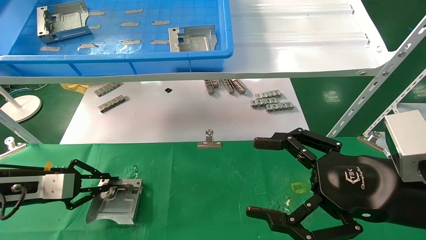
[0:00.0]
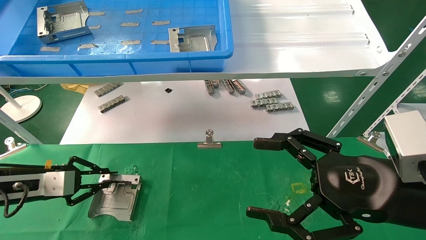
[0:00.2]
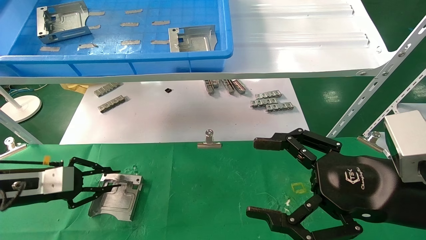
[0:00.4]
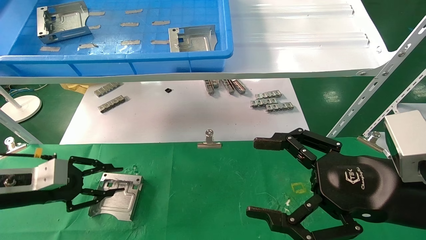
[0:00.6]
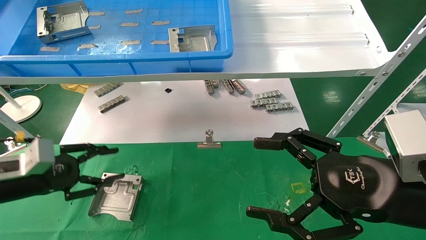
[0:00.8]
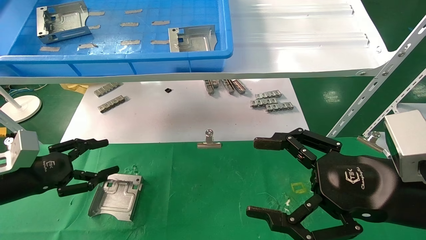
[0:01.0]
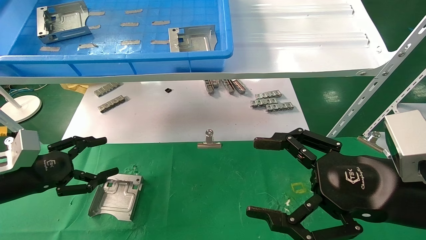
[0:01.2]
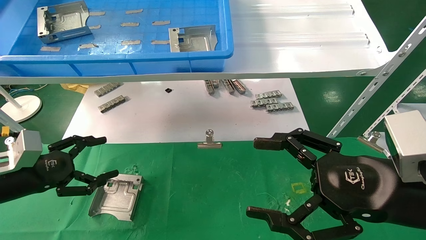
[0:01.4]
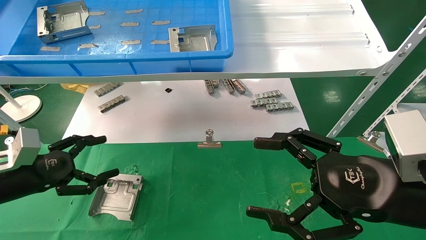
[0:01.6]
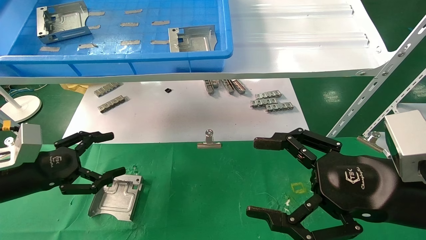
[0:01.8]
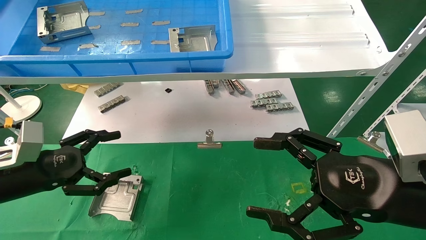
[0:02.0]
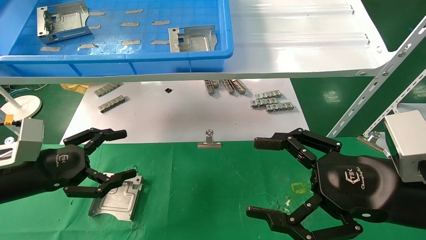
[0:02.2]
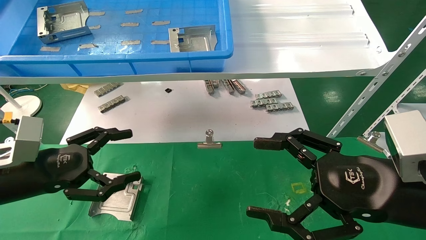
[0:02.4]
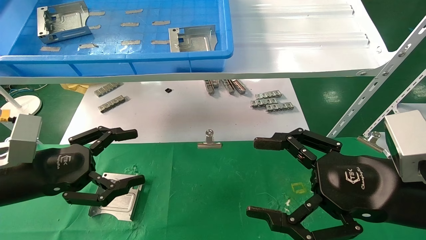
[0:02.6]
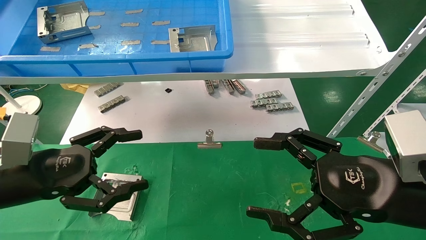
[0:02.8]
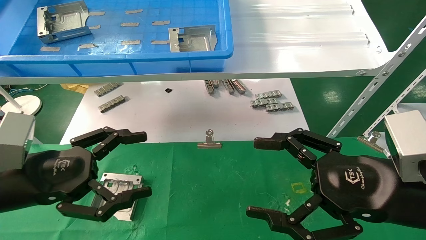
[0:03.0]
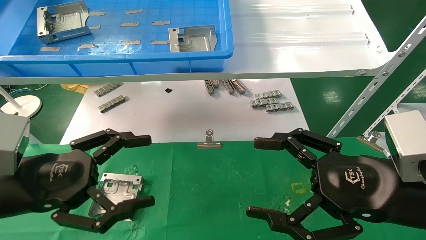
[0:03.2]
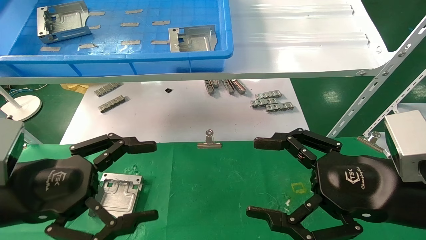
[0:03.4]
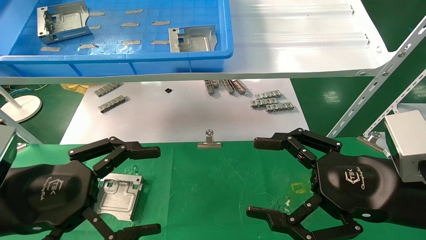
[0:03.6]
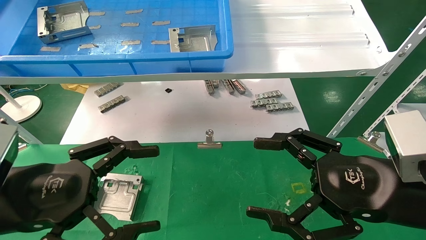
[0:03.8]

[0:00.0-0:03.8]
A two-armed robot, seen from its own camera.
Task of the whole recording: use the mechanical arm to pick up the parts and place them on the table.
0.0 to 1.2 s: The left gripper opens.
1.2 to 2.6 s: The left gripper goes approximately 10 cm to the right.
2.6 to 3.8 s: The left gripper shifts roughly 10 cm backward and to the right.

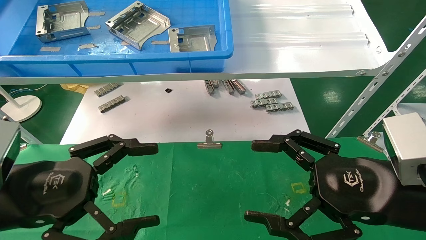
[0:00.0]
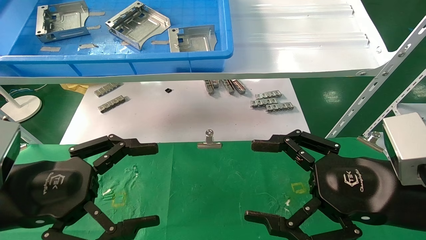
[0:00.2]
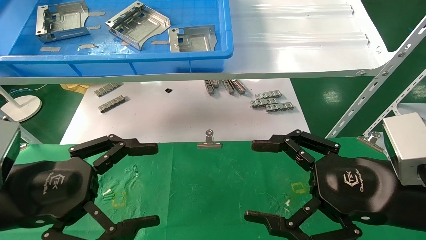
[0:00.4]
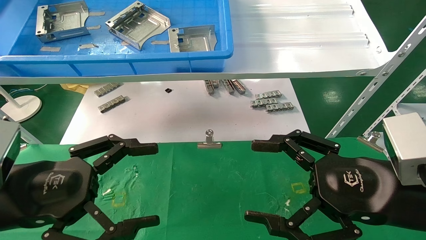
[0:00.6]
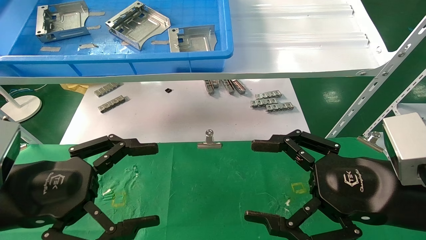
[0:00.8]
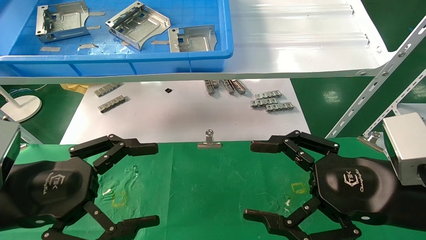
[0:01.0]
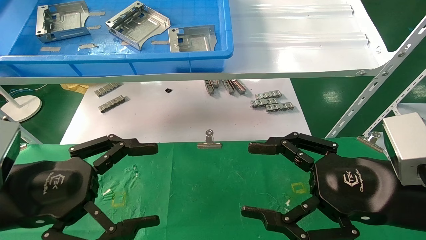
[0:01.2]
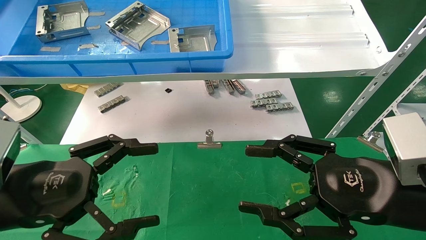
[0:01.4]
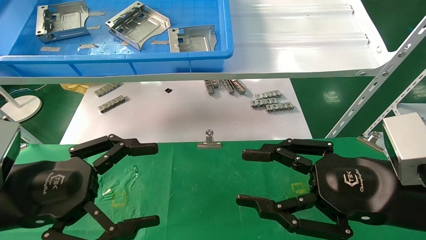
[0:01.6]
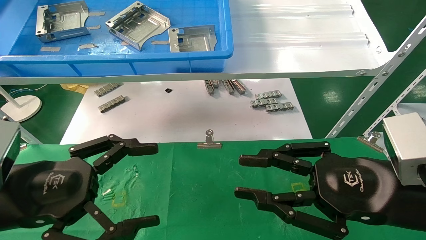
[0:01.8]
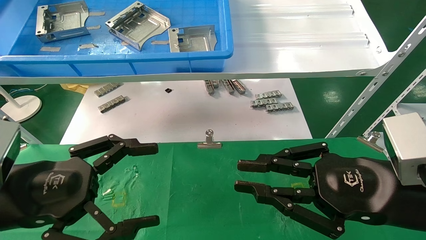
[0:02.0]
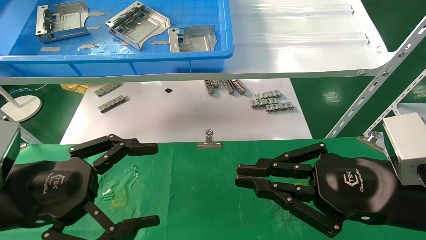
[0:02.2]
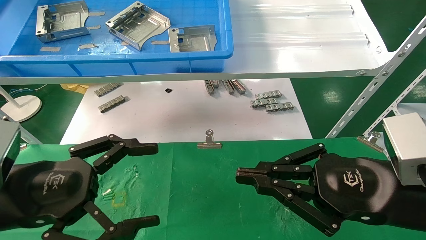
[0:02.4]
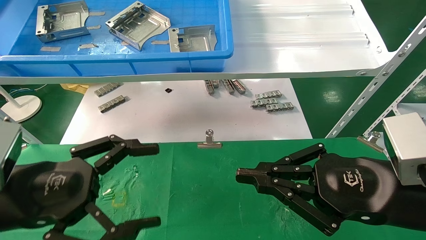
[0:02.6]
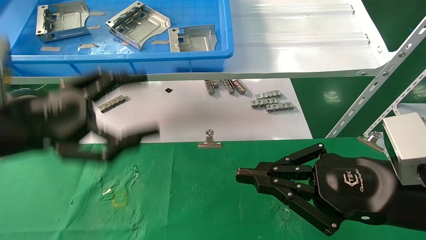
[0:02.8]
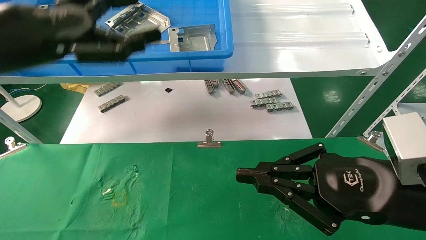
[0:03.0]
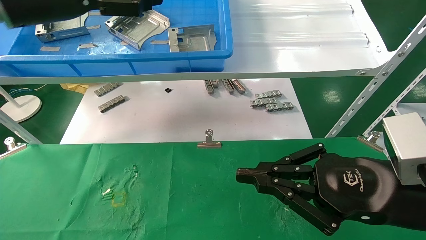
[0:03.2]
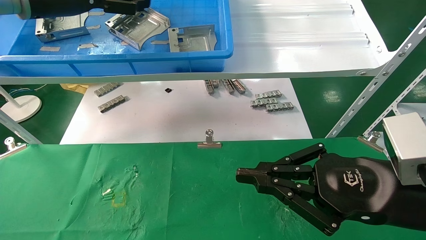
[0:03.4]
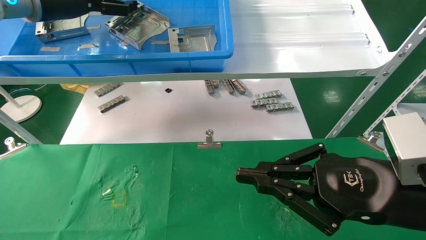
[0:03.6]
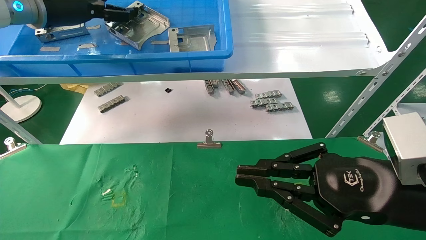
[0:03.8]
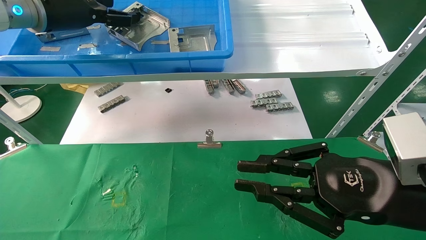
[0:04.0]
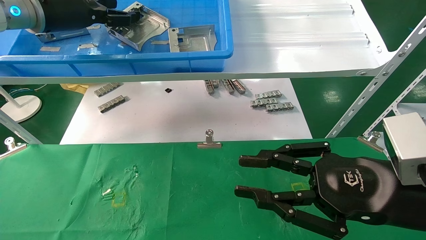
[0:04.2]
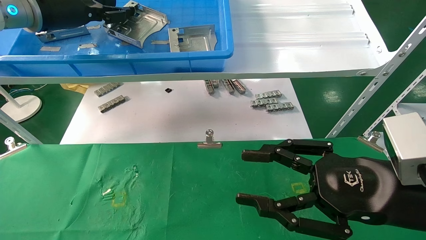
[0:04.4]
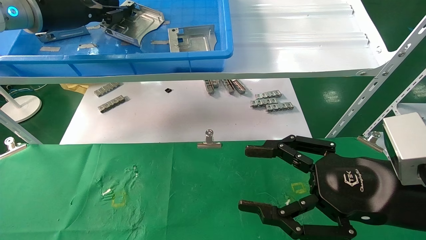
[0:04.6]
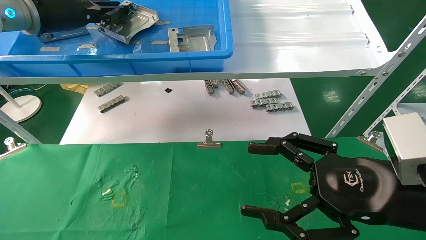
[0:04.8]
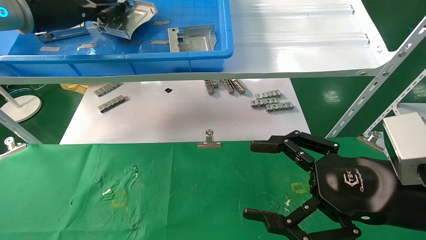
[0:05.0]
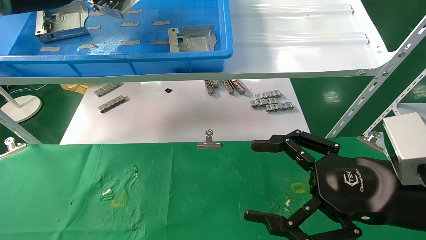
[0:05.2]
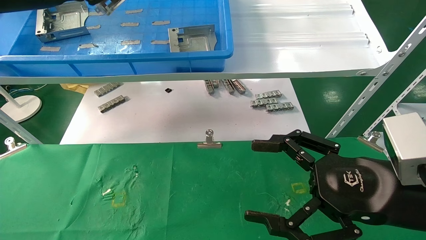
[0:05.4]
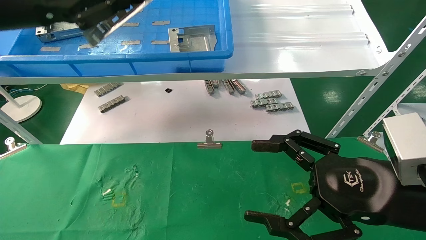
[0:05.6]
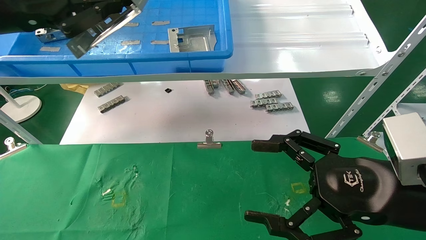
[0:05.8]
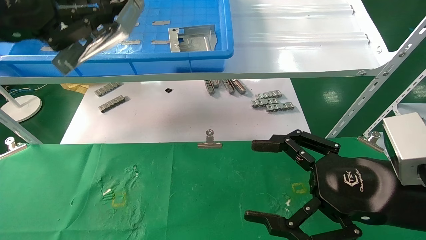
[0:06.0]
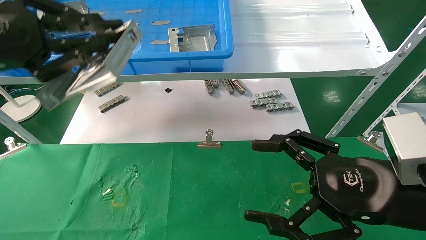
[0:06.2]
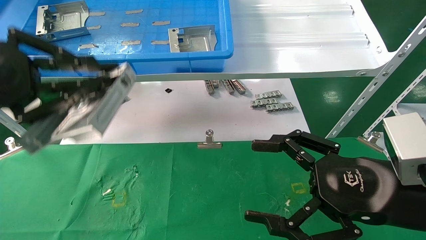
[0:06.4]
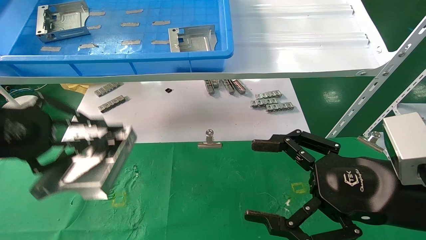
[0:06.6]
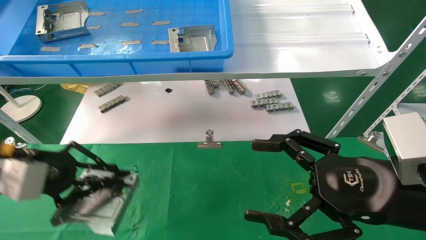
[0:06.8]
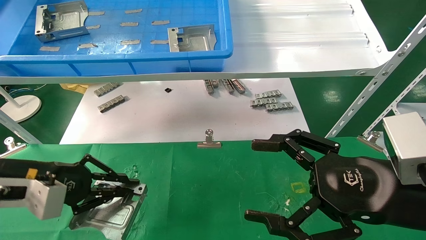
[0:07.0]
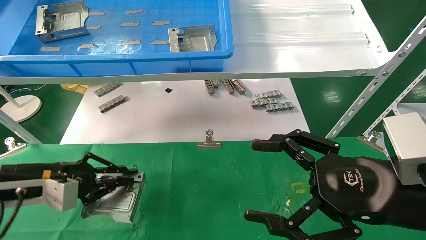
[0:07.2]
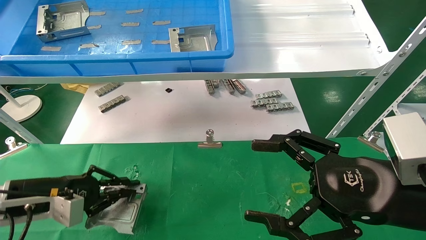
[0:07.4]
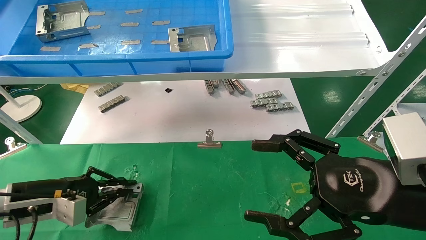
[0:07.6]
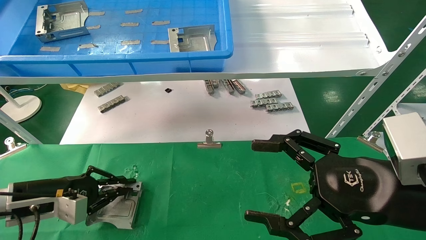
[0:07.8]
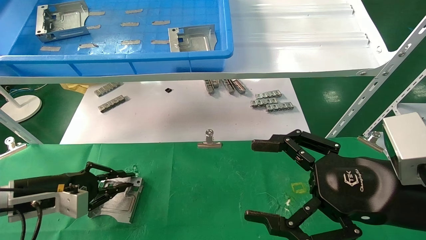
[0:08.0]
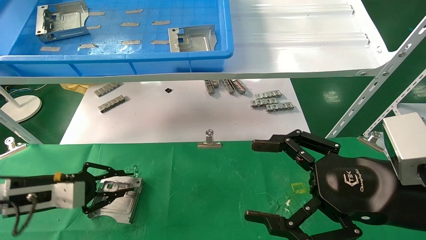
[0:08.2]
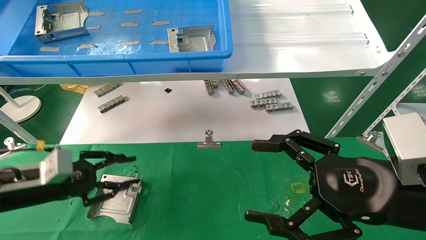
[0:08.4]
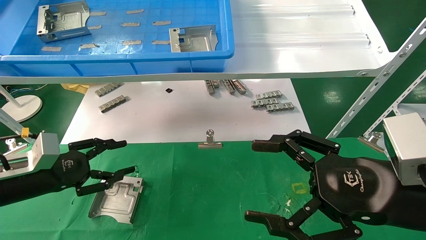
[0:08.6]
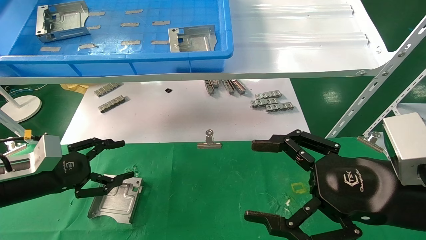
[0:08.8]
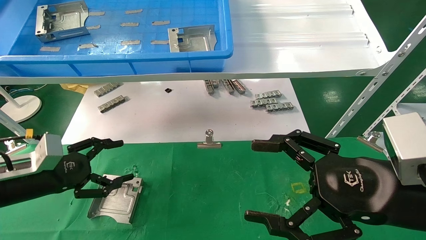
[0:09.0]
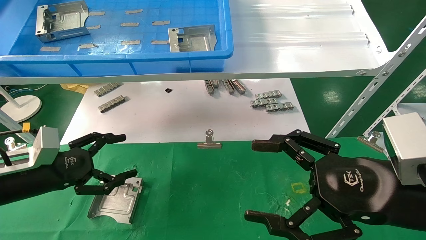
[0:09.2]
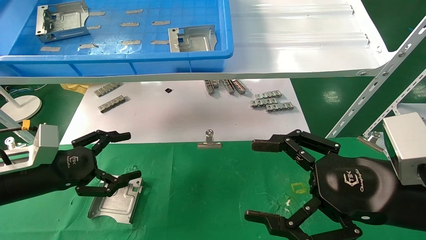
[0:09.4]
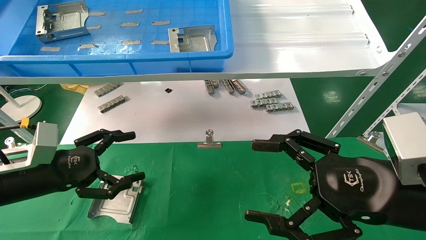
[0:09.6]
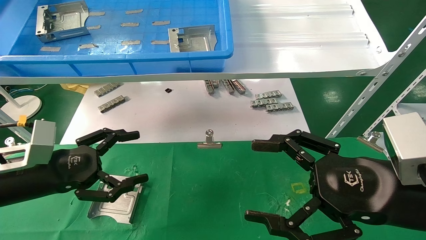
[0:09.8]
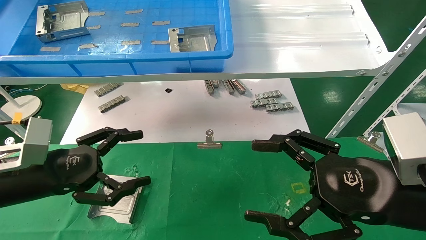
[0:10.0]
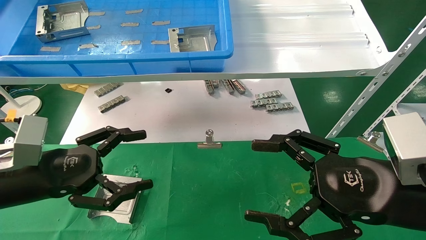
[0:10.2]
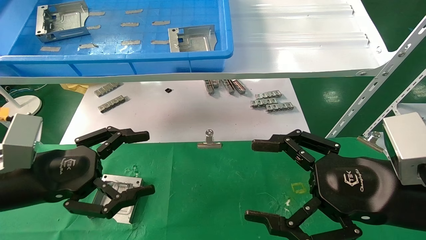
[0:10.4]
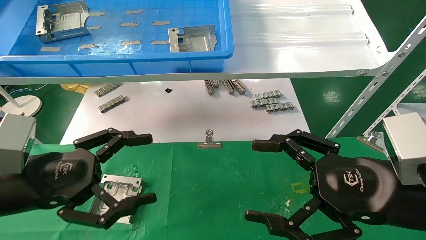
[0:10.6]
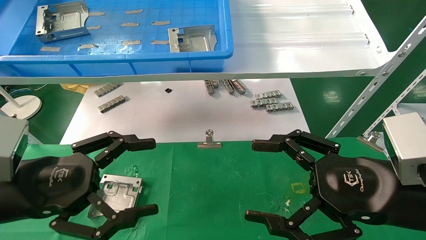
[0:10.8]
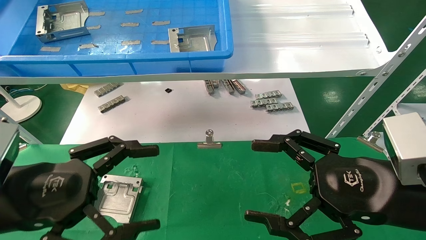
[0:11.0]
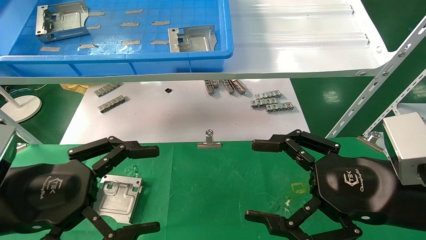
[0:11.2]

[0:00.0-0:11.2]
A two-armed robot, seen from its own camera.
Task of the whole recording: use the mechanical arm to pick up the parts and place them on the table.
Step, 2.8 to 4.8 s: Pick up the hard drive bracket from the feeding area.
Step, 5.0 to 8.4 s: Place the hard drive bracket into the box.
0.0 to 1.6 s: Both grippers stay about where they are.
1.6 to 3.2 s: The right gripper closes. The left gripper moves upward and forward, some 25 cm.
3.2 to 4.8 s: The left gripper goes roughly 5 cm forward, and closes its fingers, while the right gripper opens up.
4.8 to 6.4 s: The left gripper goes approximately 20 cm backward and downward.
6.4 to 8.0 s: The left gripper travels downward and forward by about 25 cm.
8.0 to 9.6 s: The left gripper is displaced upward by some 5 cm, and opens its fingers.
9.6 to 11.2 s: The left gripper heads backward, to the right and upward, covering about 15 cm.

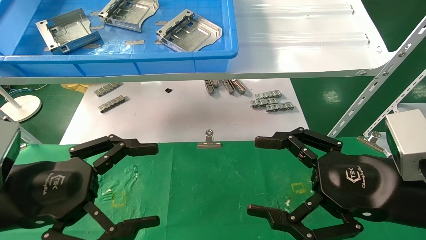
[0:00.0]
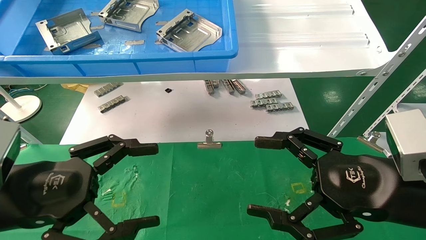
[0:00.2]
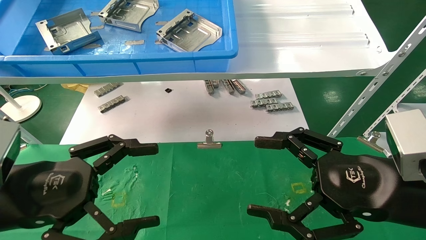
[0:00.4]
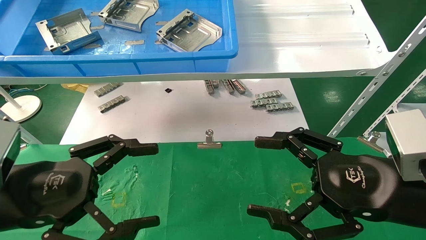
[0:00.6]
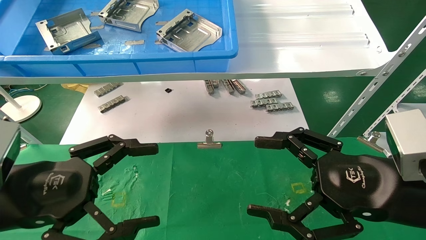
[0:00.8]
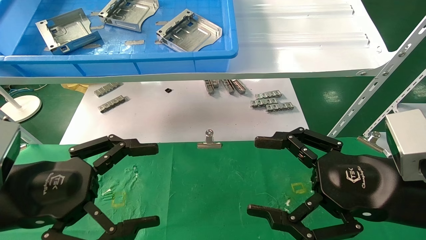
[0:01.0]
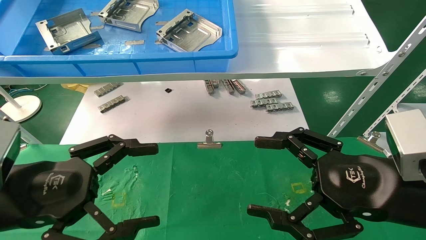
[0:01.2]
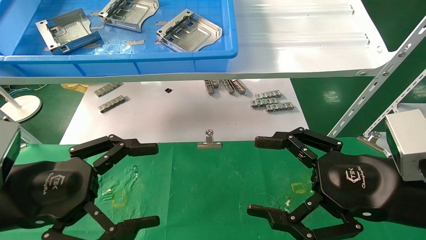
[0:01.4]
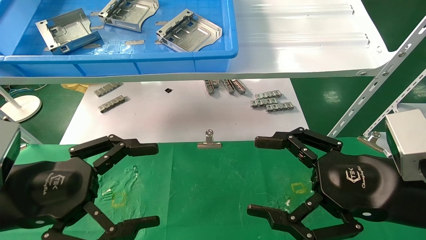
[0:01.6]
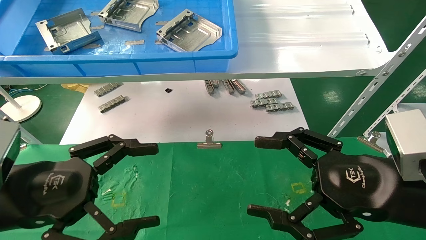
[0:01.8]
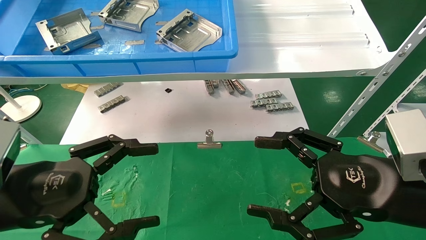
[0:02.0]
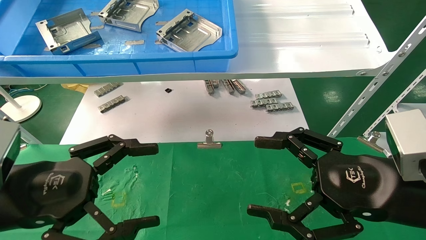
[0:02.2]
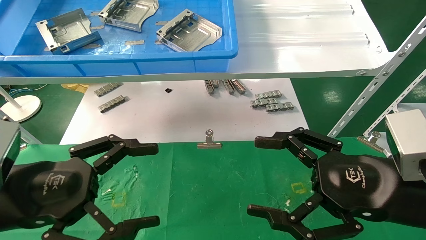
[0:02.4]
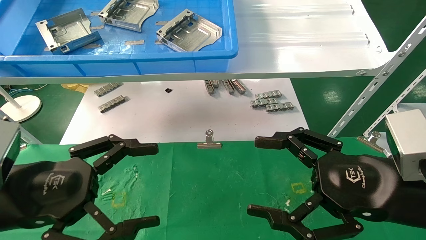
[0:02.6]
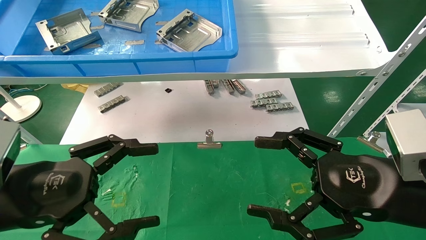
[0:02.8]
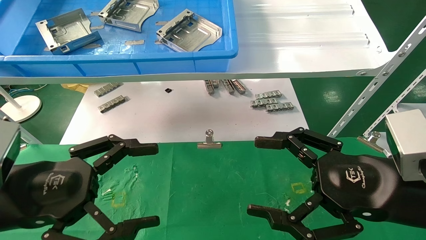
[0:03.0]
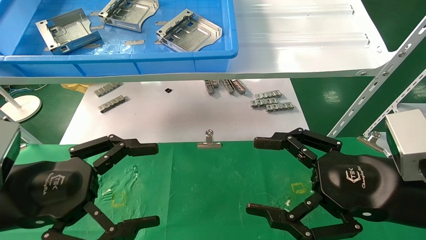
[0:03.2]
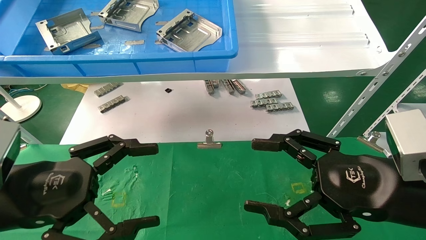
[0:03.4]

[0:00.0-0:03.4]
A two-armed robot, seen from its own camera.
Task of the whole recording: use the mechanical arm to pick up the parts and place them on the table.
0.0 to 3.4 s: The two grippers keep their place.
